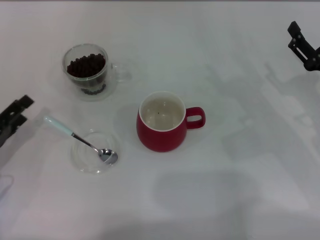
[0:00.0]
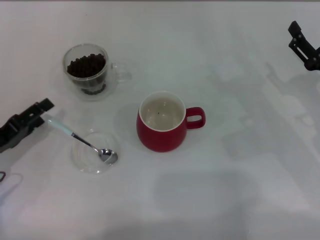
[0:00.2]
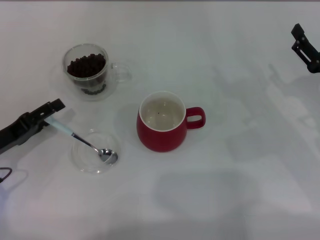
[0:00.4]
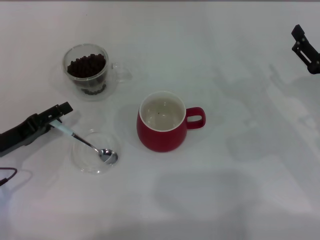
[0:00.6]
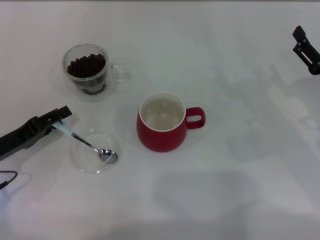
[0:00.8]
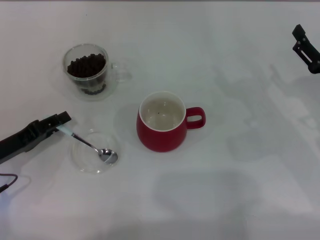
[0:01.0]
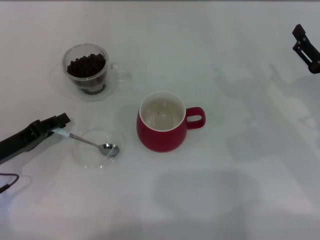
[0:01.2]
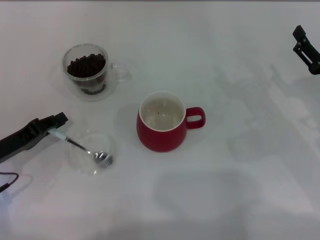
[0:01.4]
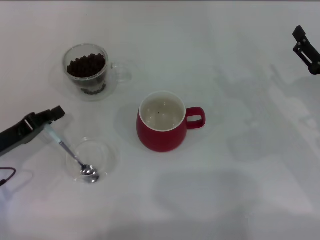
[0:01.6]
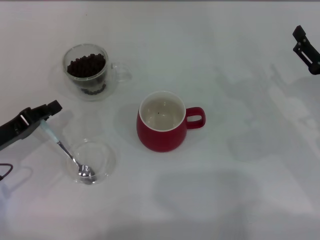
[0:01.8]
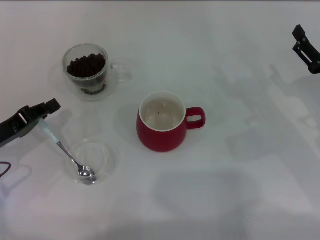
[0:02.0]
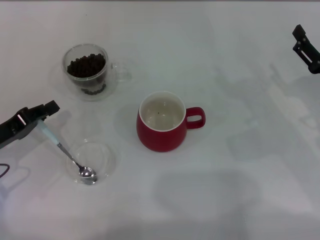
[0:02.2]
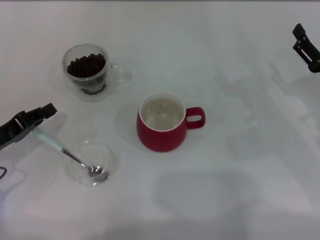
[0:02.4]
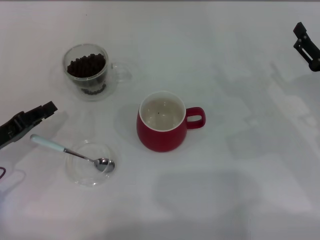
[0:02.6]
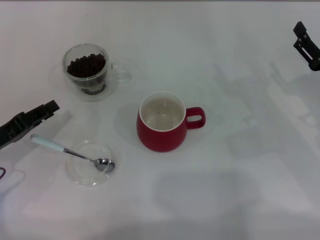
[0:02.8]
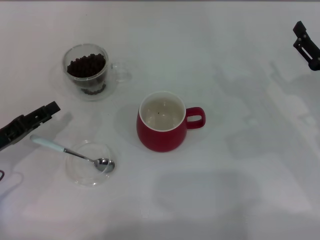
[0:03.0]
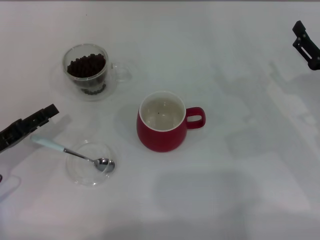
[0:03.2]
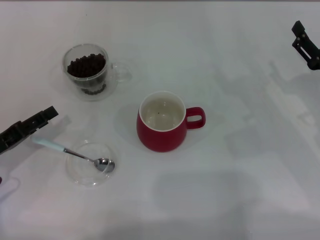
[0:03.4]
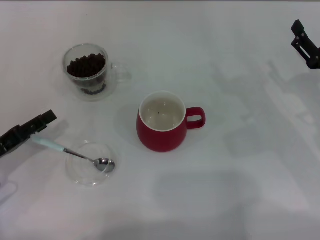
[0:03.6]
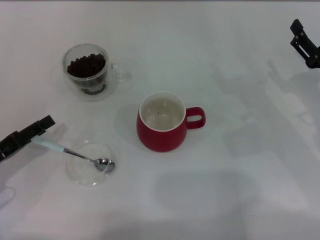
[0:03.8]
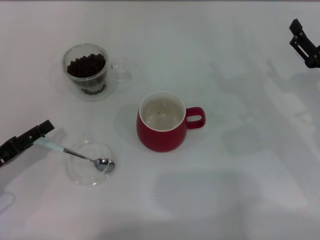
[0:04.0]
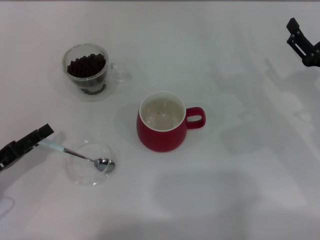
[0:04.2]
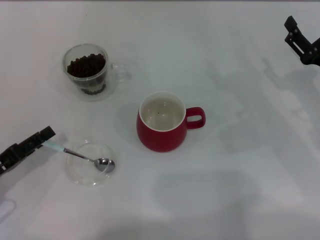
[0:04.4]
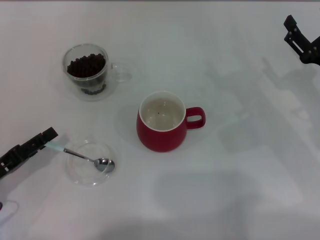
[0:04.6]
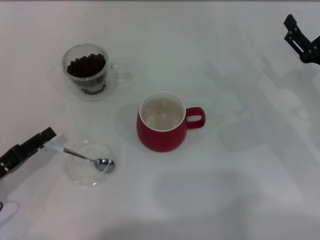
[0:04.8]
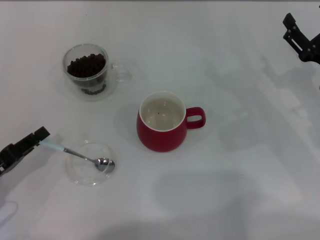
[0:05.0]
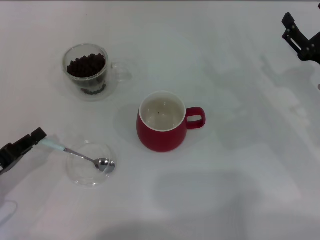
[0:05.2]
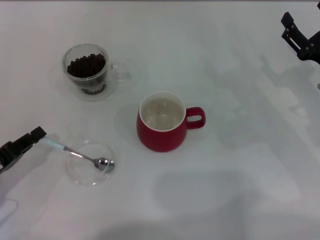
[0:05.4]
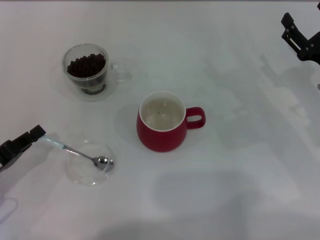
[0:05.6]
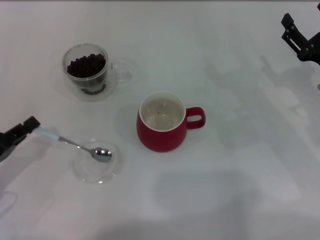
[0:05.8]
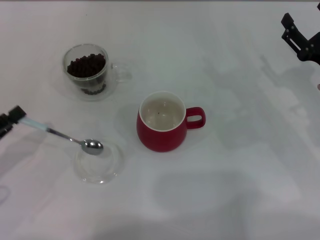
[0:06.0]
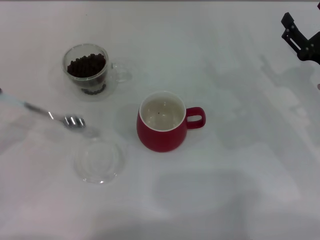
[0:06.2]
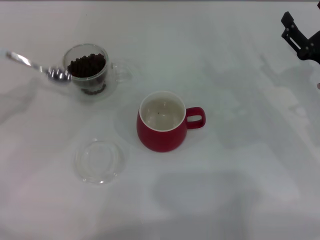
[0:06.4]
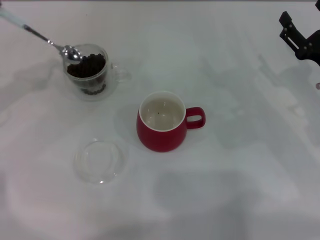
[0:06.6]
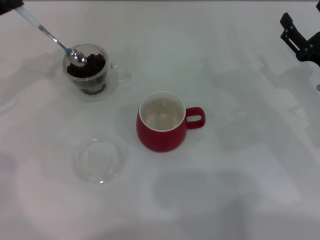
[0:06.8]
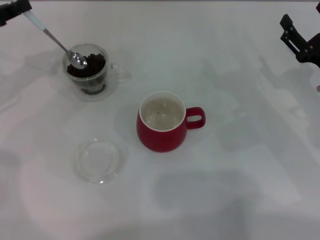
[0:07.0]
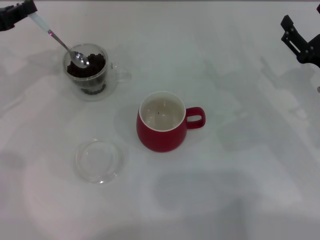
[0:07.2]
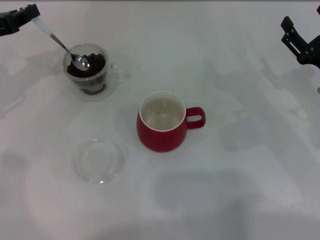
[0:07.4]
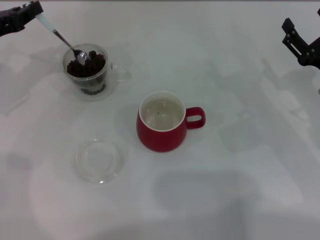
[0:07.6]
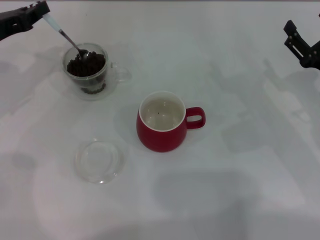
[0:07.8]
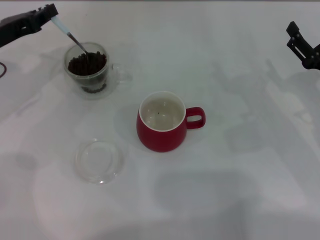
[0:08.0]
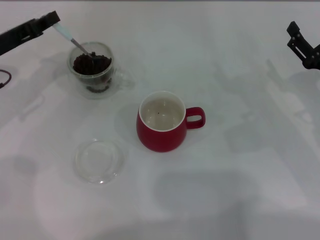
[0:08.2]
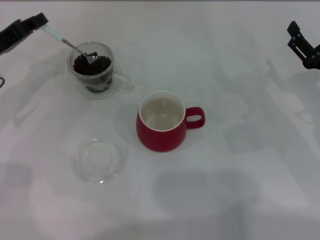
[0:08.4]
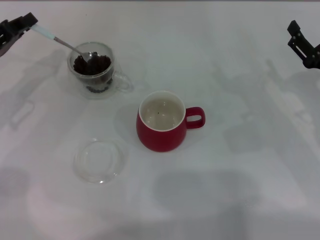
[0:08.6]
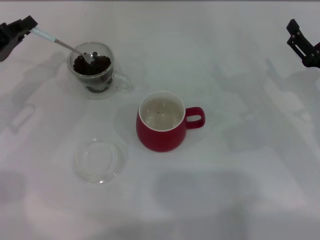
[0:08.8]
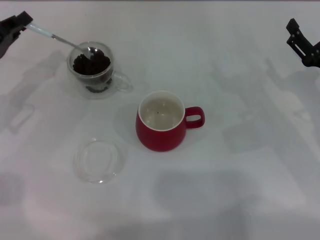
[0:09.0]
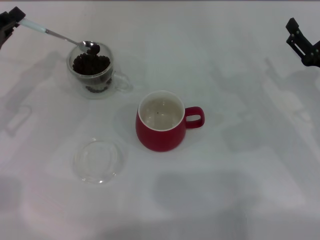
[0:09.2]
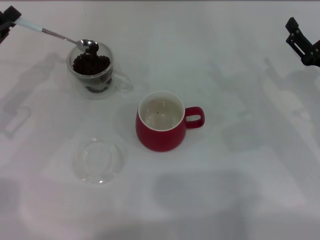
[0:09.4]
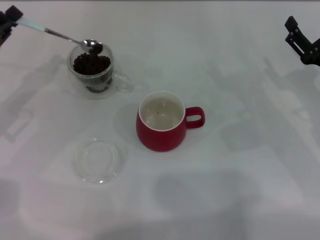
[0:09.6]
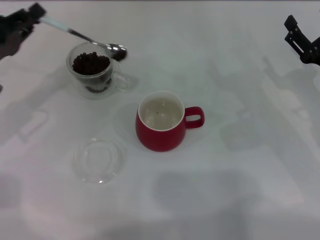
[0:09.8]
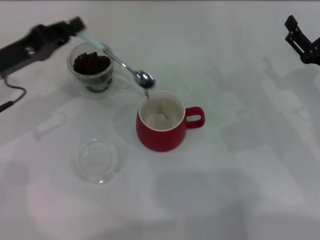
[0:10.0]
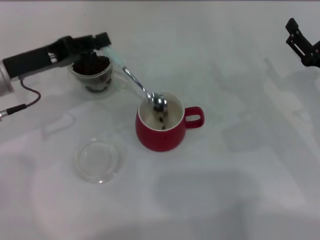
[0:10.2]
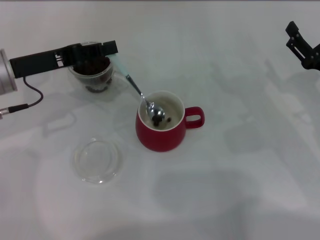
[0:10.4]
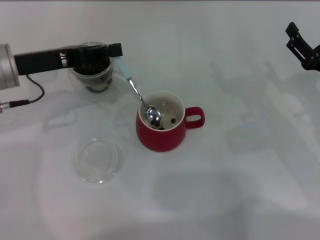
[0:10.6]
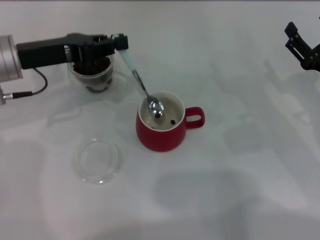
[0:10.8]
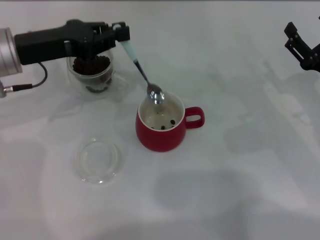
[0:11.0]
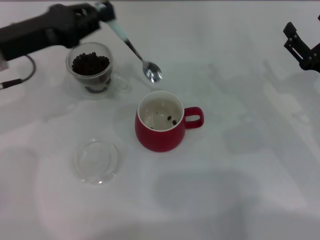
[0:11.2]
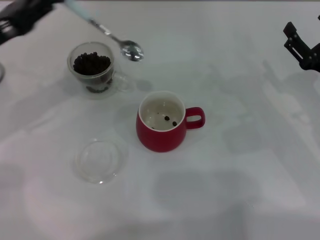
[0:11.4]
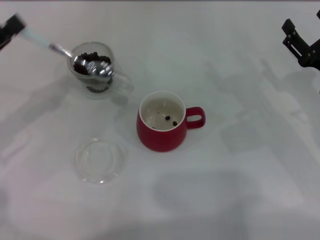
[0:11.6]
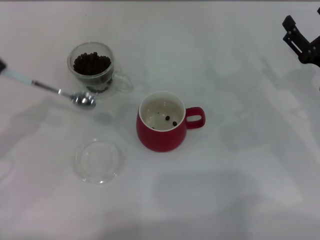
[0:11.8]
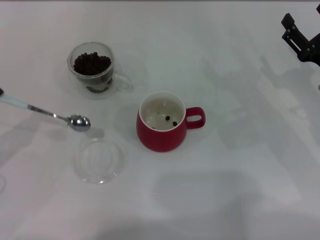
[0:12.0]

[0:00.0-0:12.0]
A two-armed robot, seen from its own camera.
Task of the whole recording: Use a blue spoon to take out the coffee beans from the glass and pour them into the red cup.
Step, 0:00.0 to 0:06.0: Pick up the spoon with the right gripper.
0:00.0 to 0:01.6: The left gripper closes its fingers.
0:01.6 to 0:03.0: The left gripper opens up.
0:03.0 to 0:04.4: There are only small adjustments of the grippers.
0:04.4 to 0:06.0: The left gripper closes up.
0:06.0 to 0:07.6: The left gripper heads forward and upward, covering about 20 cm.
0:09.0 to 0:10.4: The left gripper shifts approximately 5 cm to the right.
0:10.4 to 0:12.0: The left gripper goes about 20 cm backward and to the left.

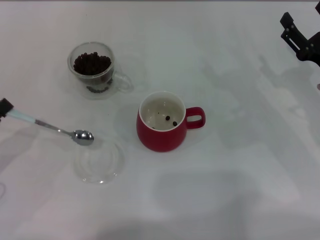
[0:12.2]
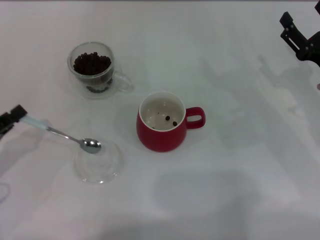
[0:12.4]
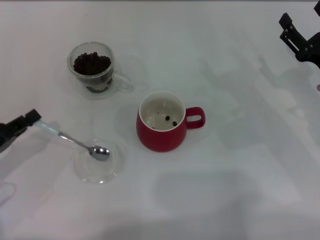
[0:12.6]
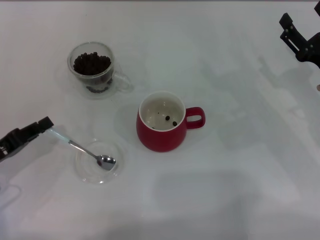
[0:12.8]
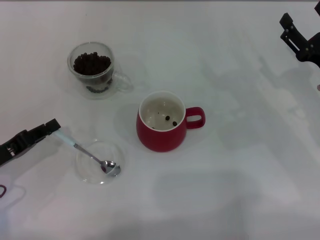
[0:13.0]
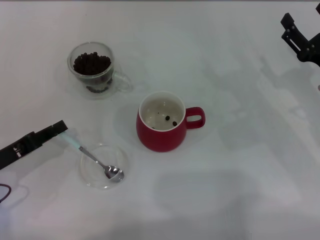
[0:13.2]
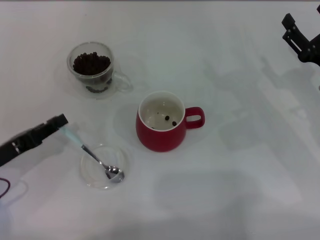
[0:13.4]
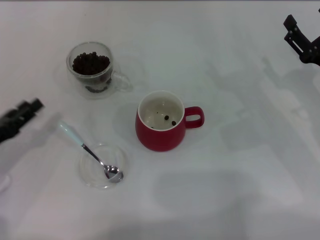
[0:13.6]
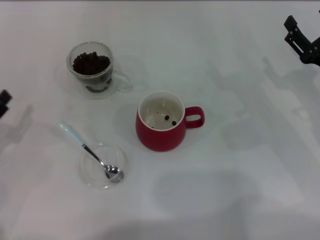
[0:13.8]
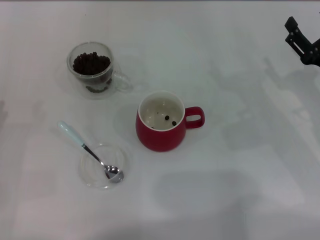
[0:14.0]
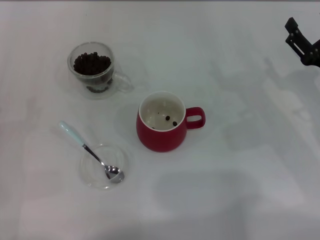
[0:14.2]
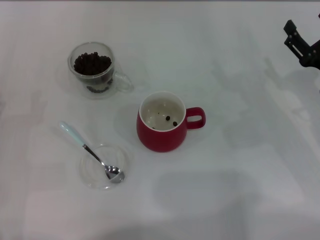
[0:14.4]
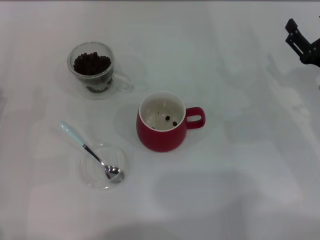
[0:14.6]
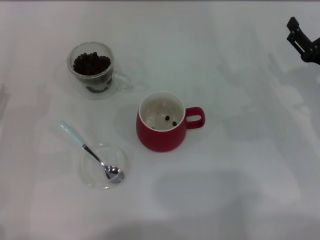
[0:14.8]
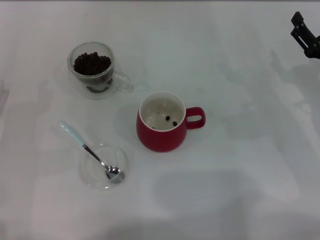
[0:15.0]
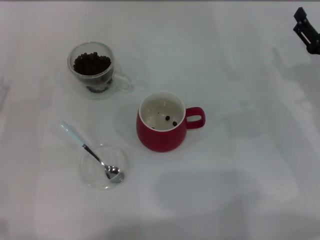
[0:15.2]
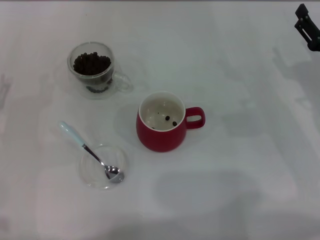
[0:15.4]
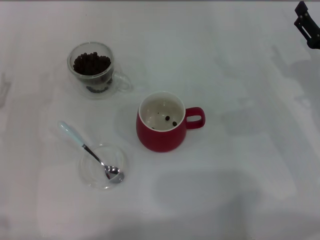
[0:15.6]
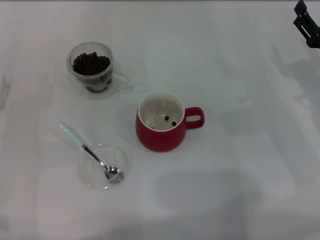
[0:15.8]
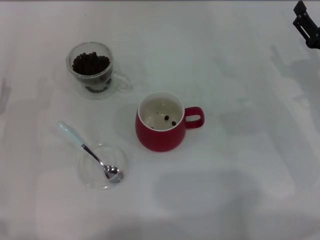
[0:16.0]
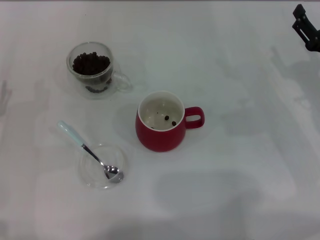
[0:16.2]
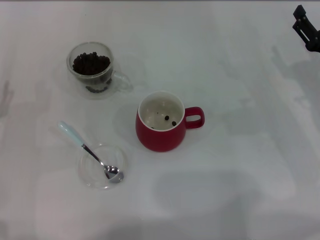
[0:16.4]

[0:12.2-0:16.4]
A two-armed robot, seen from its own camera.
Task of the whole recording: Use a blue spoon to take out the coffee beans from the glass and pour them into the red cup.
0:12.2 to 0:13.6: The left gripper opens up.
0:13.6 to 0:15.0: The left gripper opens its fingers.
0:15.0 to 0:16.4: The grippers make only small movements.
